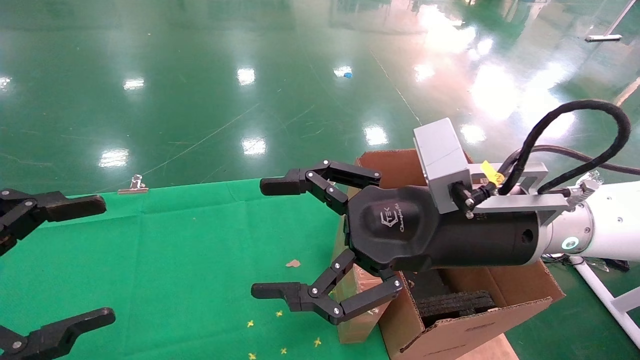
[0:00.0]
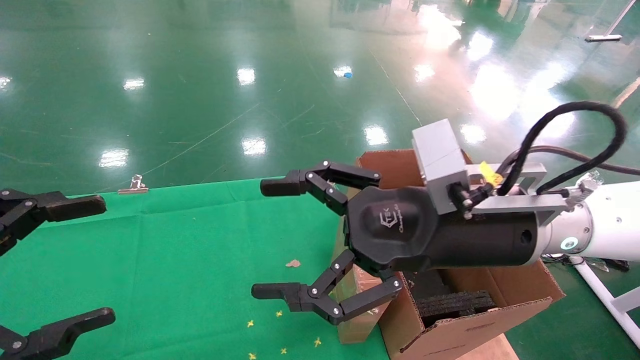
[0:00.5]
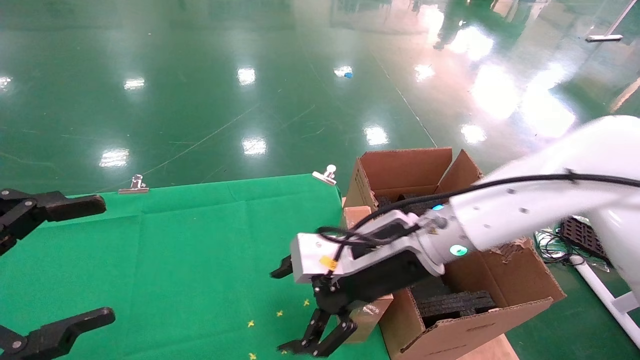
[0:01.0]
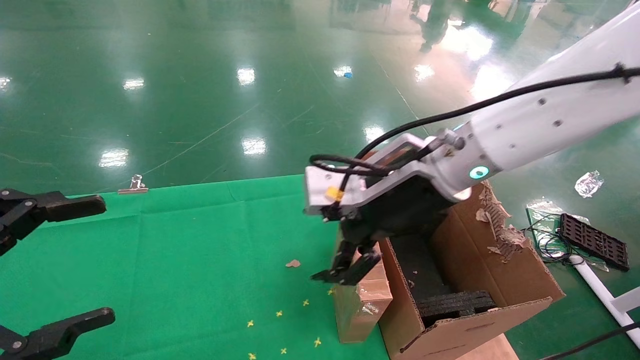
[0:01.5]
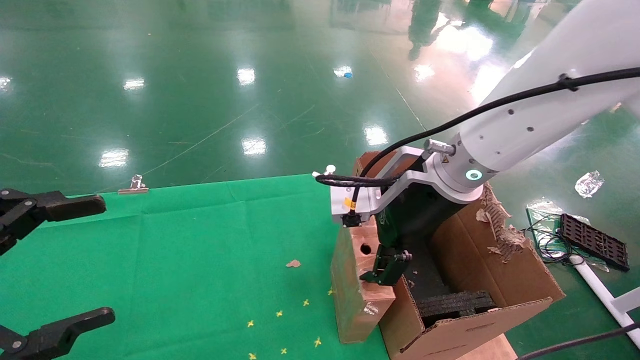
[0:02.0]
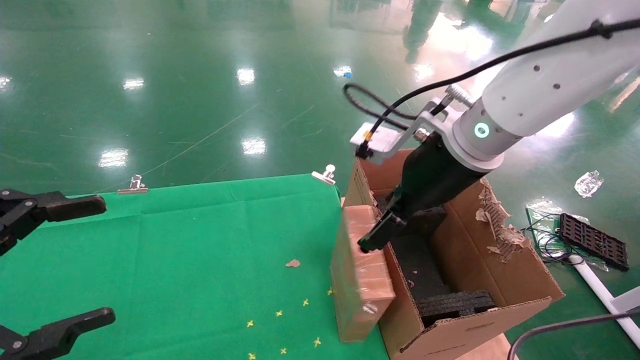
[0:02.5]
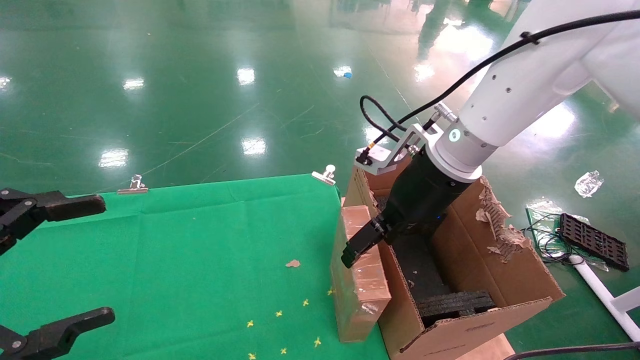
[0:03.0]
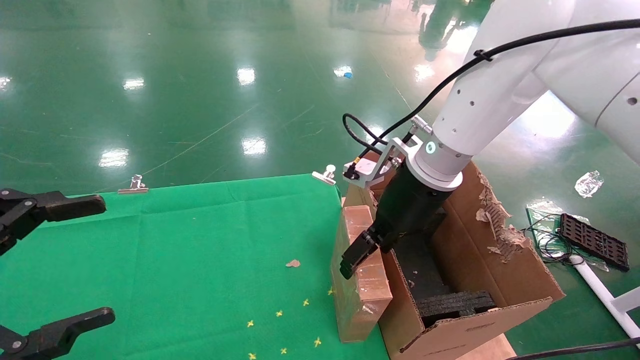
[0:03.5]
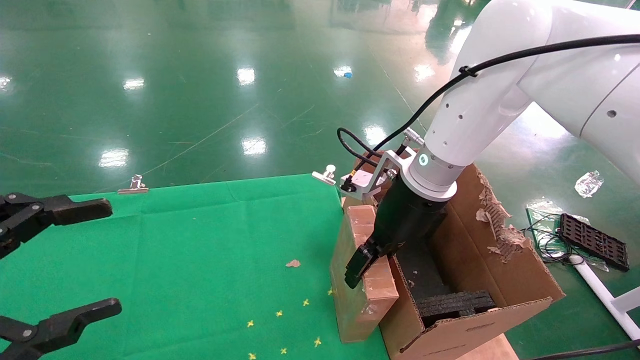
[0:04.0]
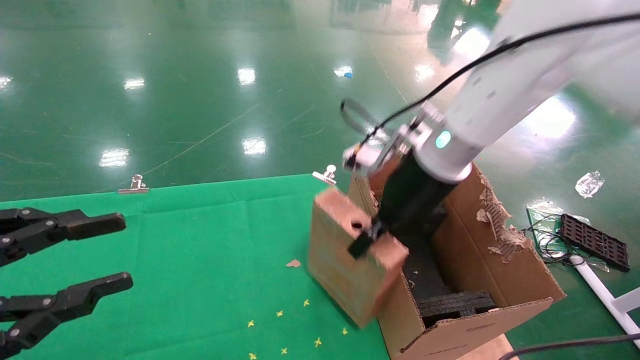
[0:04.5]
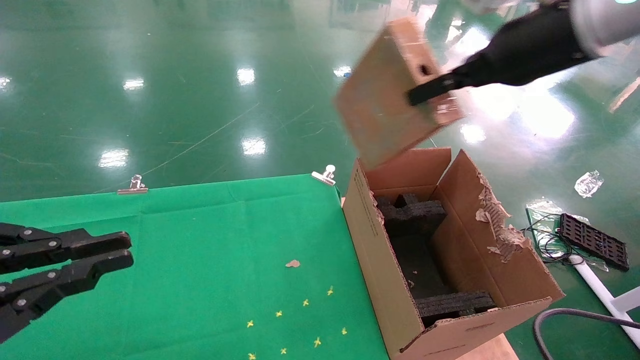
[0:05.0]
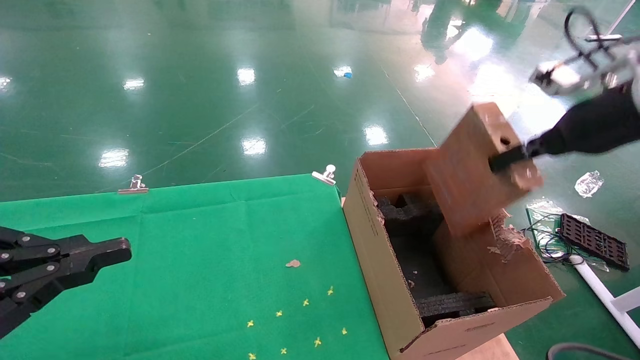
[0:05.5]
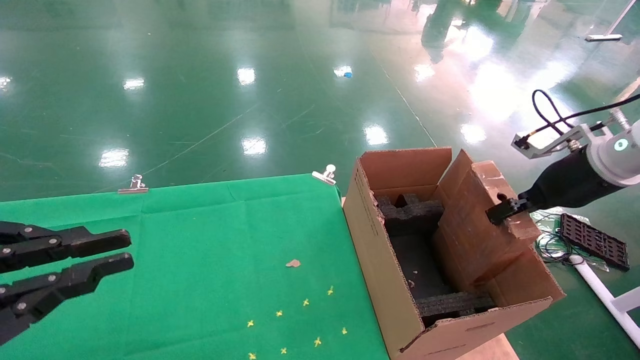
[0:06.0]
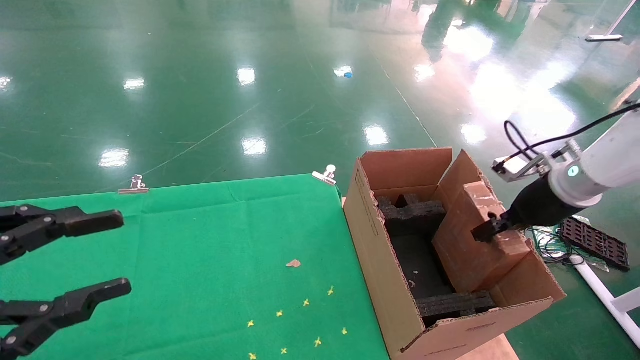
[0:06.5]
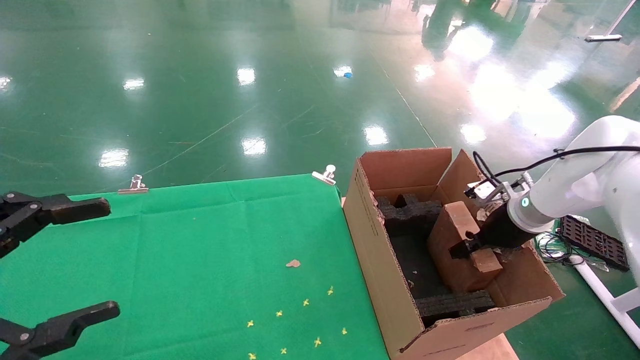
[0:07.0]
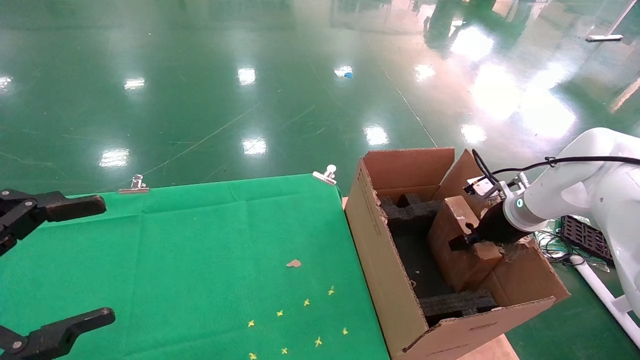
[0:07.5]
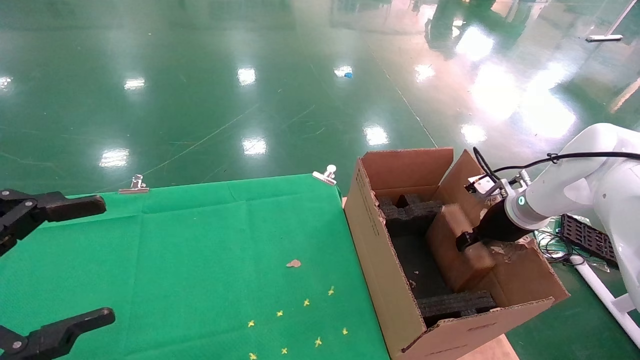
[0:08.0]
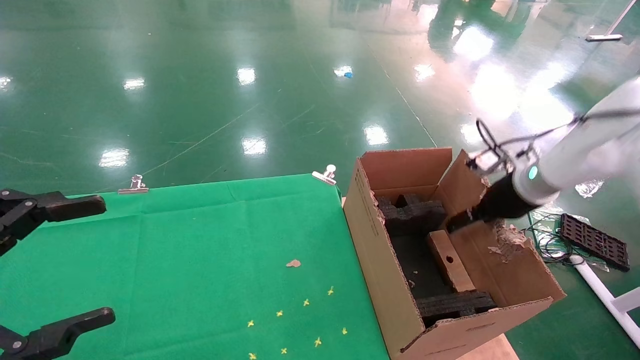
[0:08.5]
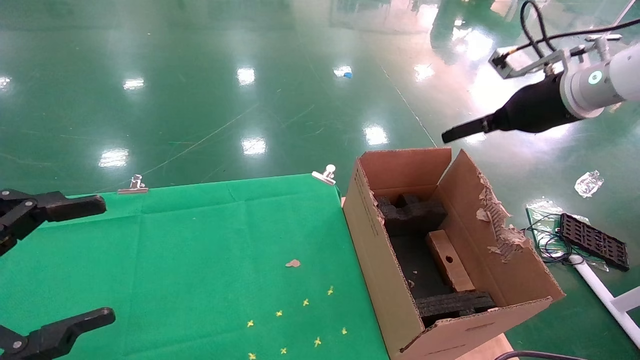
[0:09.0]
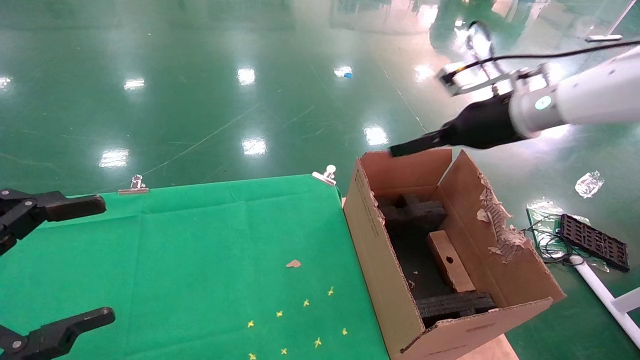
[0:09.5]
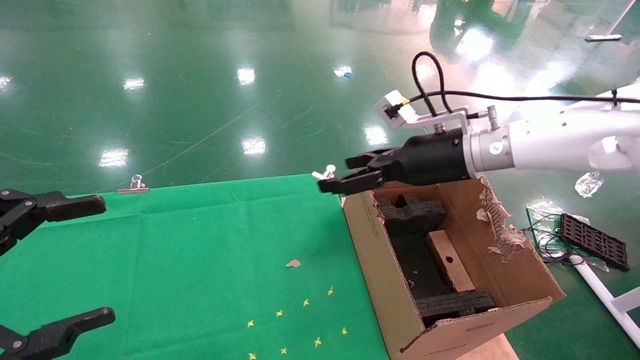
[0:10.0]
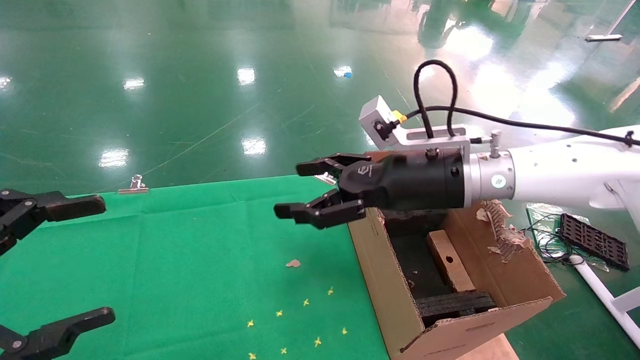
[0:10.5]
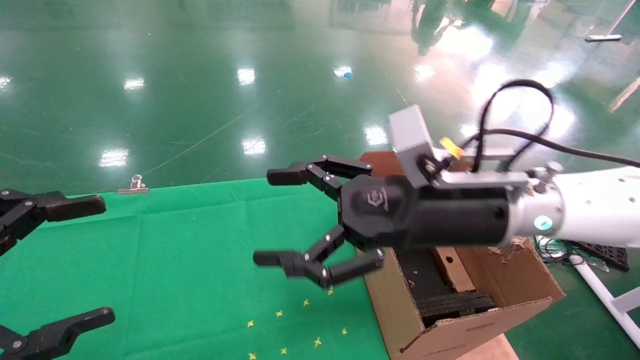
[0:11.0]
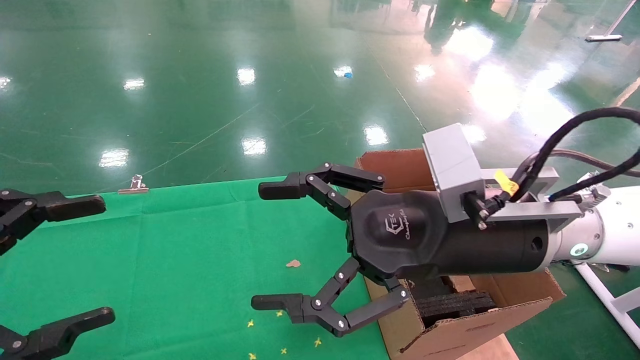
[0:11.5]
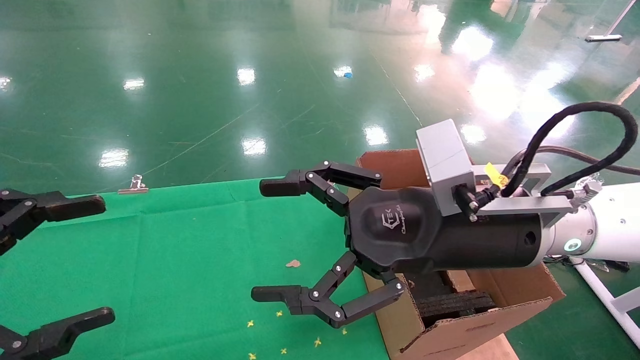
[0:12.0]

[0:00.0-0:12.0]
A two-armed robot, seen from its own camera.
Task of the whole recording: using a robotic arm to pick up a cardboard box and palace it the carton.
Step, 0:01.0 to 0:04.0: Pick up the mouse and the power cord paper box.
Step, 0:04.5 to 0:08.0: Place the mouse and the power cord paper box into the container.
0:00.0 to 0:02.0: The right gripper goes about 10 cm forward.
0:02.0 to 0:04.0: The right gripper changes place by about 5 cm.
0:04.0 to 0:06.0: The right gripper is displaced to the right by about 25 cm, and closes its fingers. The left gripper closes its fingers.
0:06.0 to 0:08.0: The left gripper opens; the right gripper heads downward and forward, covering some 15 cm.
0:08.0 to 0:10.0: The right gripper is displaced to the left and upward by about 20 cm, and opens its fingers.
0:10.0 to 0:12.0: The right gripper goes some 15 cm backward and to the left.

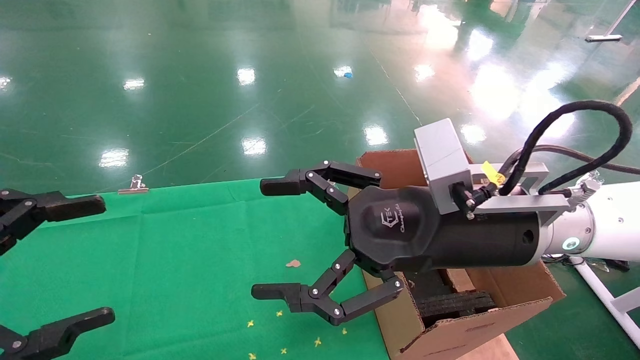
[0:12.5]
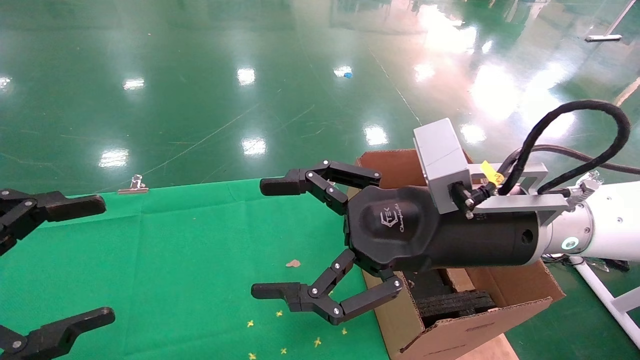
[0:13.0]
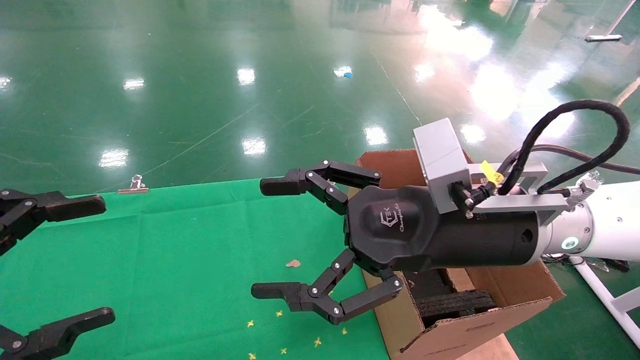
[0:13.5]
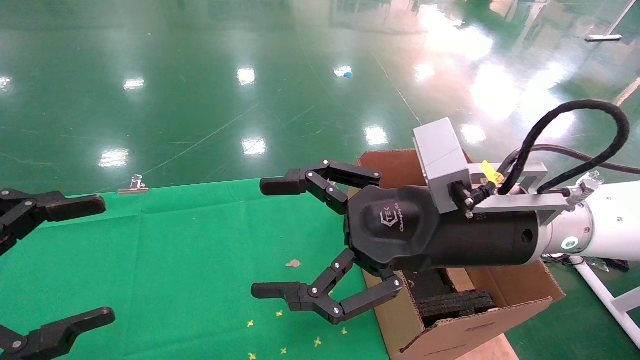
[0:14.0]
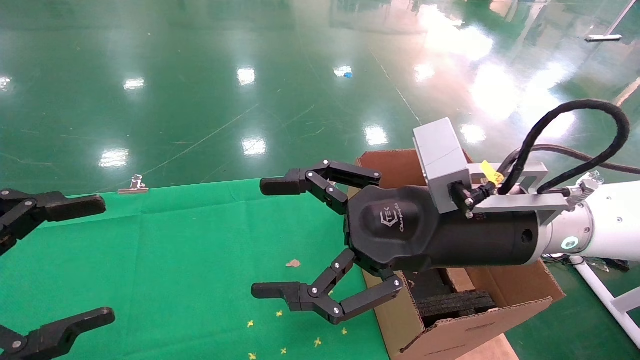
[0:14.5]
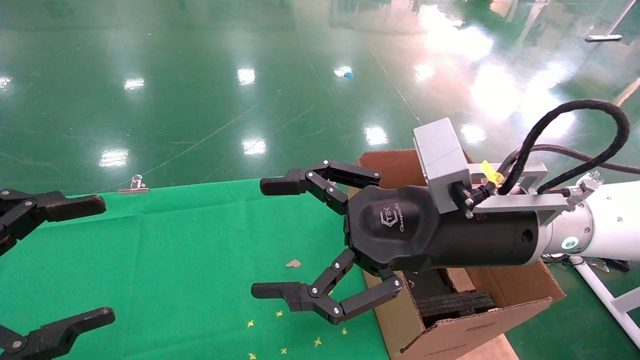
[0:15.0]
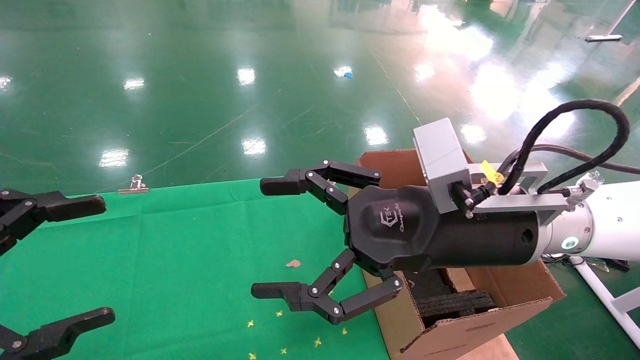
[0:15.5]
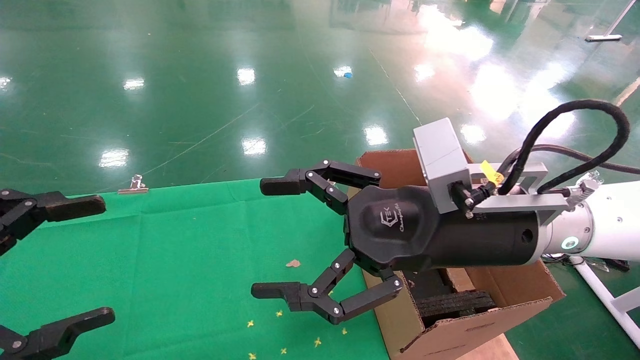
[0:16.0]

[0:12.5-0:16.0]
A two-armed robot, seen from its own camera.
Task of the whole recording: using a robotic arm to pick up a cardboard box and palace it the carton.
0:12.5 to 0:16.0: Both grippers stay about where they are.

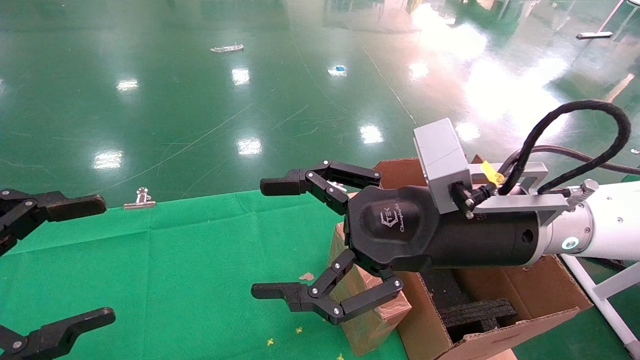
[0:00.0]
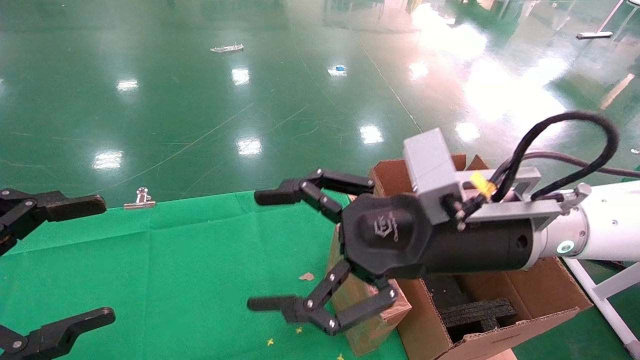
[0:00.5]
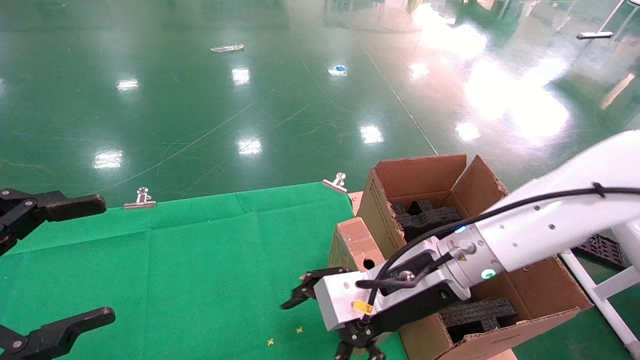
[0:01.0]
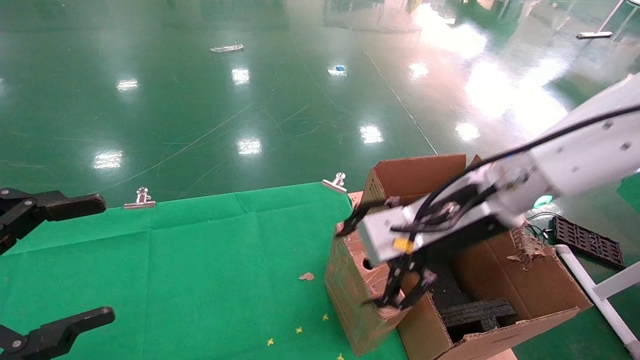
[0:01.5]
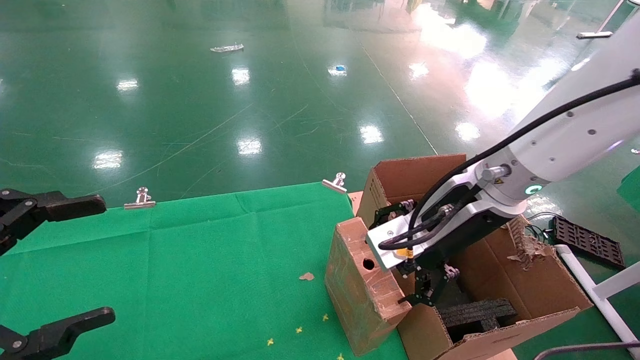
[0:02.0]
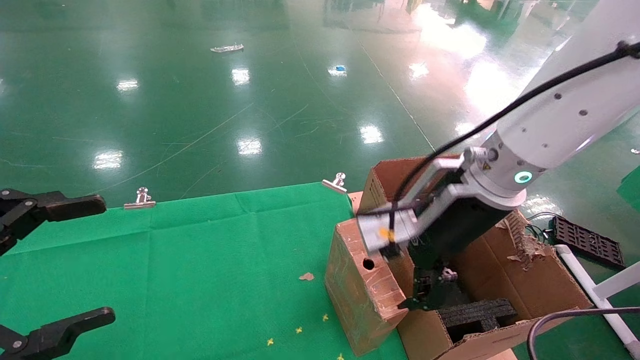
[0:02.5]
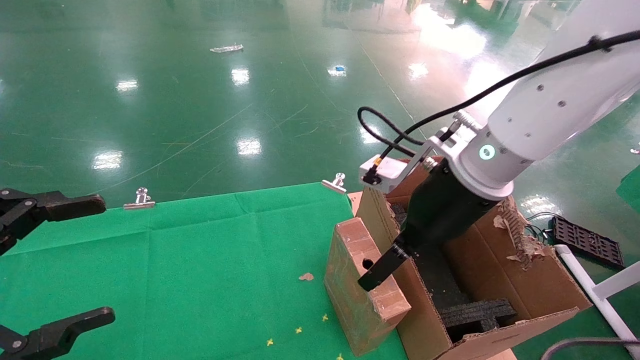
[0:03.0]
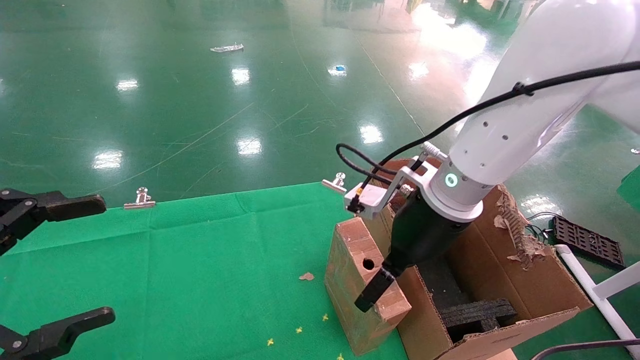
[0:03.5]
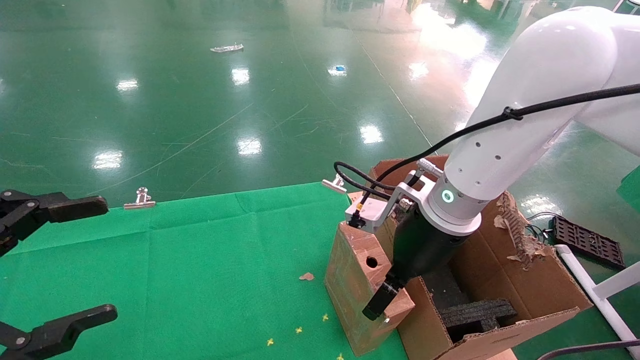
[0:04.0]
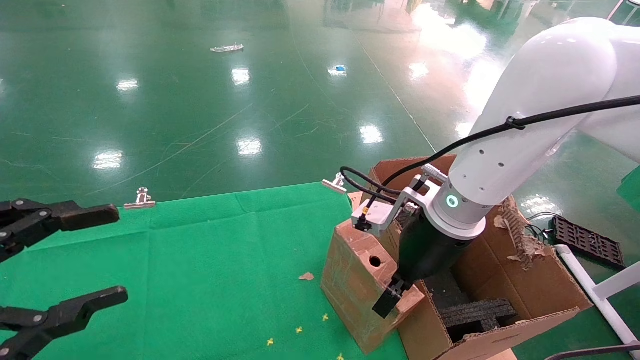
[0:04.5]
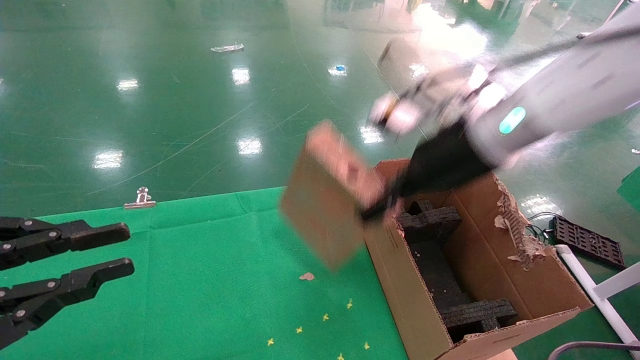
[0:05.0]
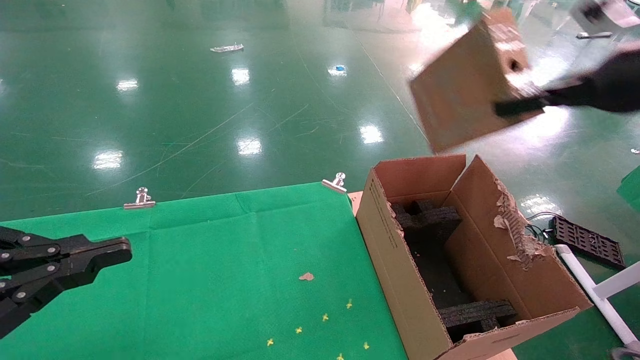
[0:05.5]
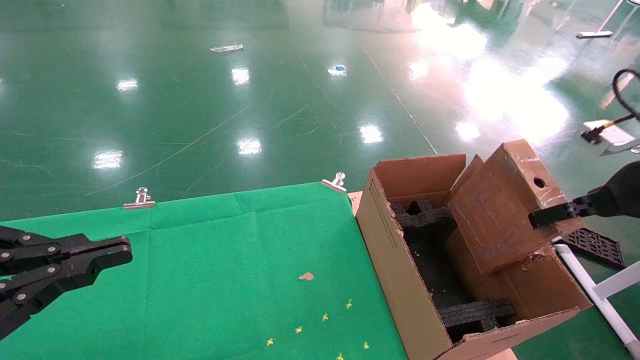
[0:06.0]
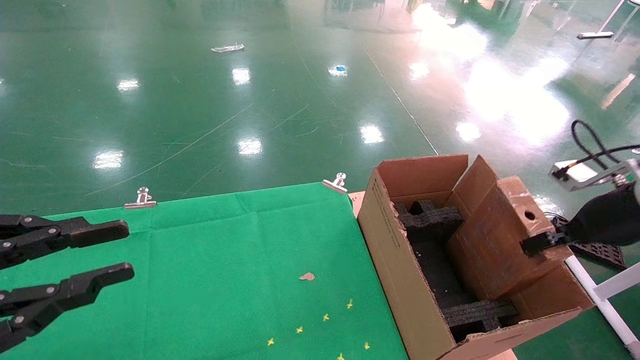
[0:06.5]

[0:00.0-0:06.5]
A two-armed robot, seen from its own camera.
Task of the whole recording: using a robotic arm to pick up a cardboard box and palace it the carton.
Step, 0:01.0 to 0:04.5: Pick up the mouse and the power cord paper box.
0:00.0 to 0:02.0: The right gripper goes about 5 cm forward, and travels downward and back again, about 5 cm each way.
0:02.0 to 0:04.5: The right gripper shifts by about 5 cm, and closes.
0:04.5 to 0:06.5: The right gripper travels to the right by about 30 cm, and closes up. Meanwhile the left gripper closes its fingers.
